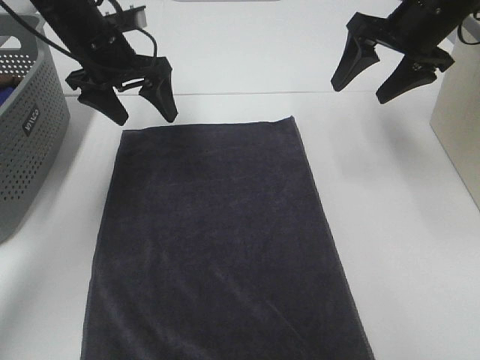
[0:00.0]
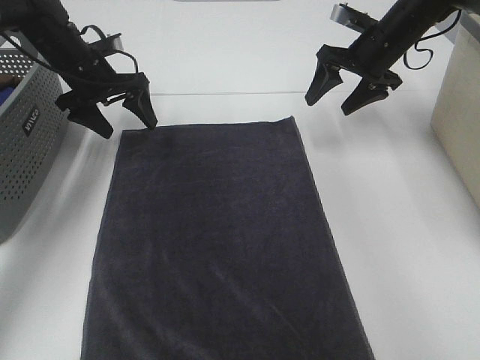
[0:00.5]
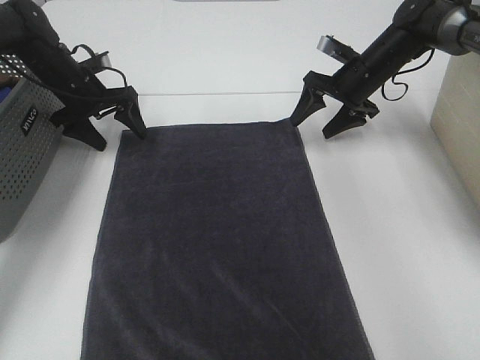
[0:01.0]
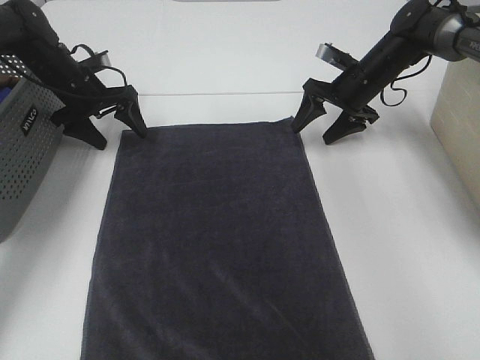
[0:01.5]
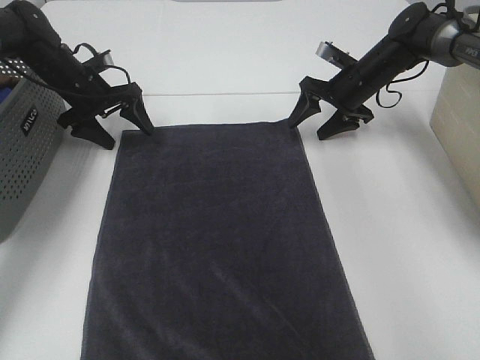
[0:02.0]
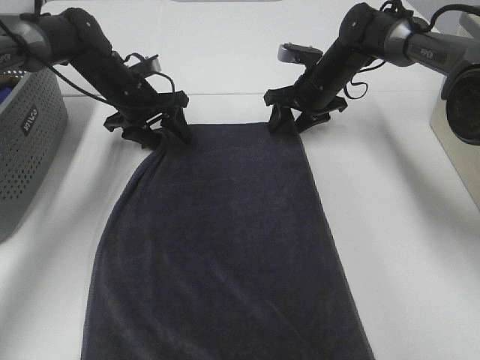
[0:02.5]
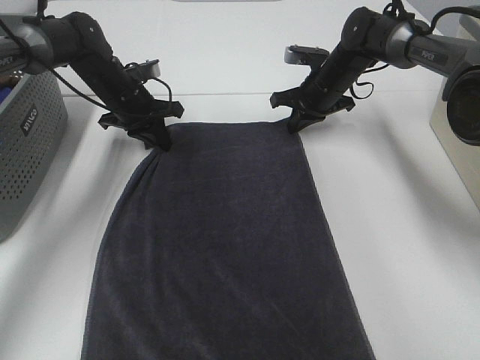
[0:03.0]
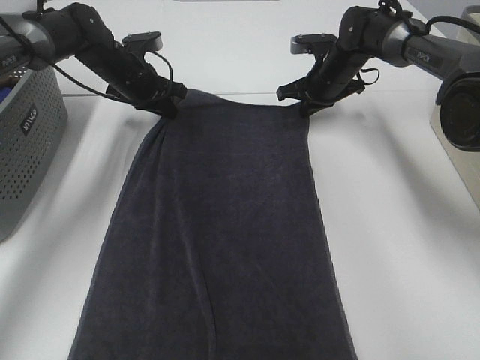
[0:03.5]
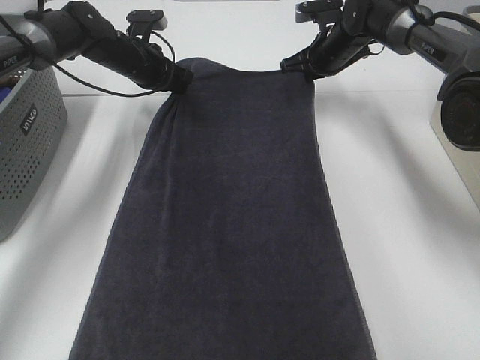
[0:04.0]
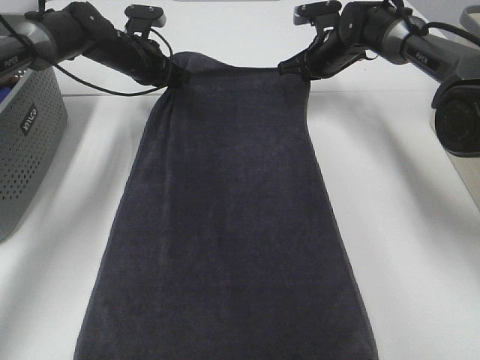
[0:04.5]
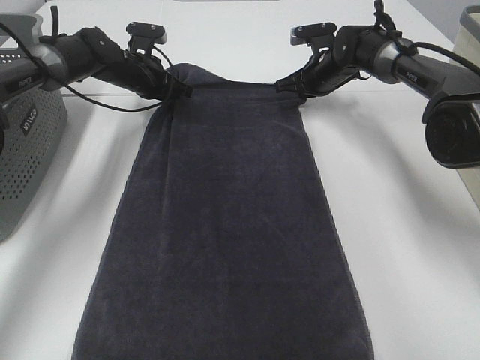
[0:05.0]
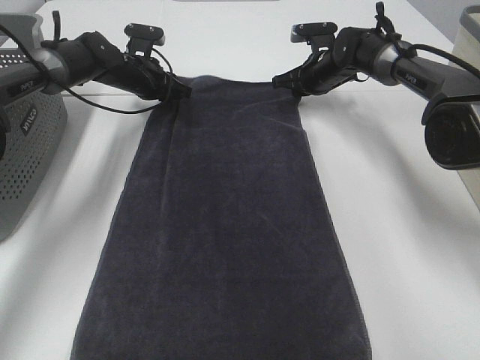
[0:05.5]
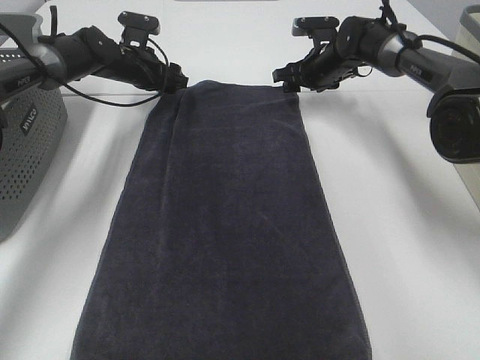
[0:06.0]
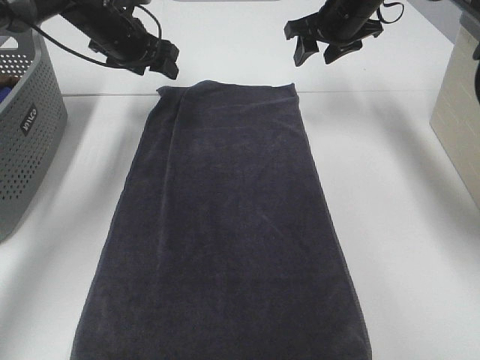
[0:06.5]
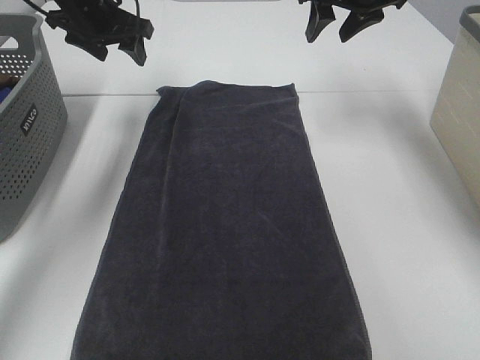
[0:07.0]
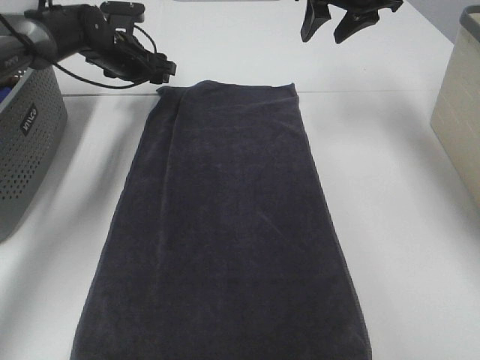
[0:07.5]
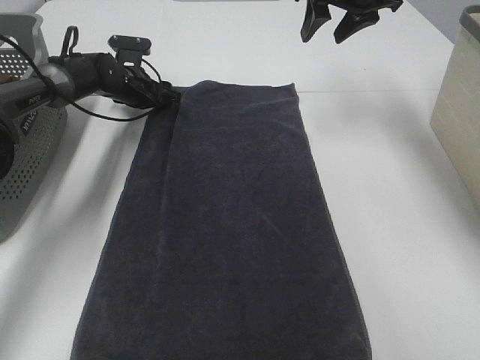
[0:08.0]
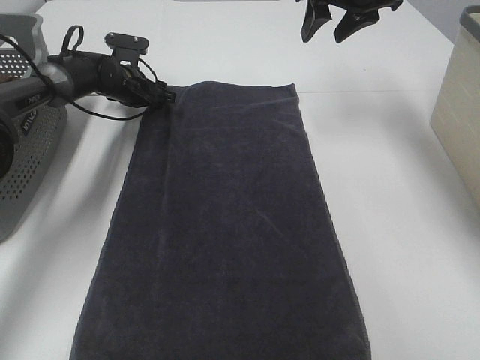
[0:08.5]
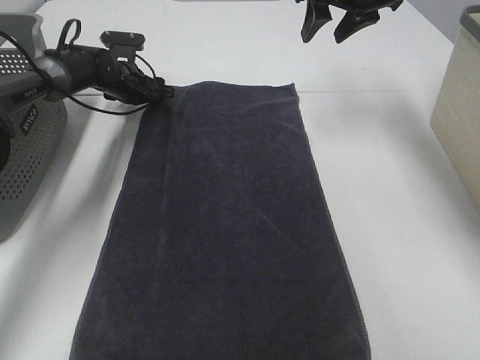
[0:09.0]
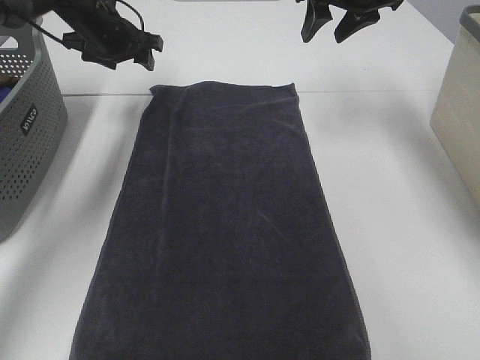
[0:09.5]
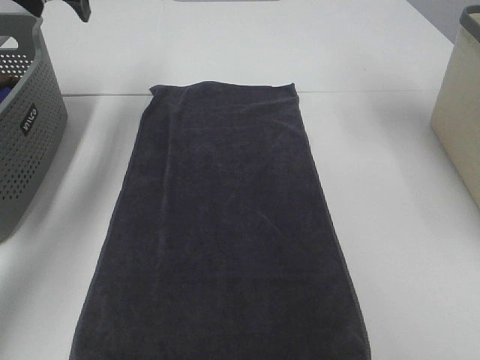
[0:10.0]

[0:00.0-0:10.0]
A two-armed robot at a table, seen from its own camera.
Task of the whole recording: Remove the towel and place it.
Step, 0:00.0 to 0:02.5: Left hand:adjust the gray towel.
0:00.0 to 0:02.0: The left gripper travels downward, to the left and forward by approximately 15 cm. Meanwhile the right gripper is displaced downward and forward by approximately 20 cm.
0:02.0 to 0:04.0: The left gripper travels to the right by roughly 5 cm, and closes its fingers. Meanwhile the right gripper ends up approximately 5 cm from where it was, and closes.
0:04.0 to 0:06.0: The right gripper opens up. The left gripper opens.
0:06.0 to 0:08.0: The left gripper reaches approximately 10 cm upward, then returns; the right gripper travels upward and backward by some 20 cm.
0:08.0 to 0:10.0: The right gripper goes some 10 cm upward. Meanwhile the left gripper travels upward by about 25 cm.

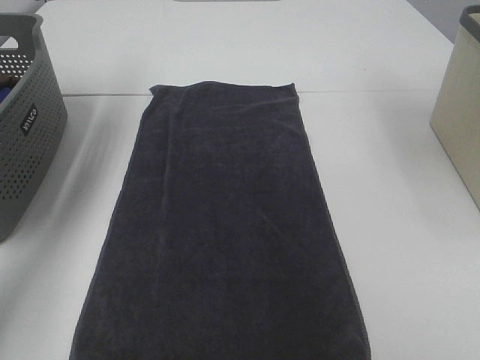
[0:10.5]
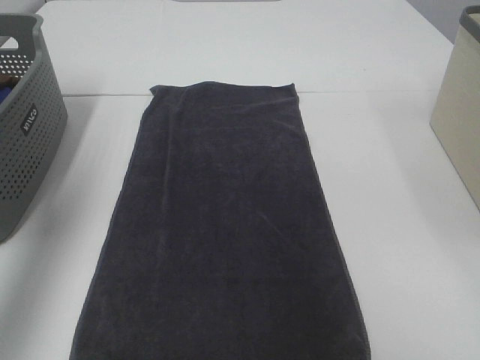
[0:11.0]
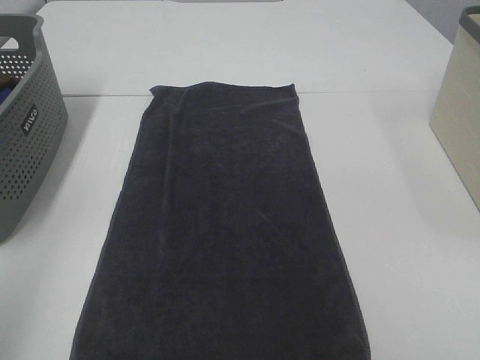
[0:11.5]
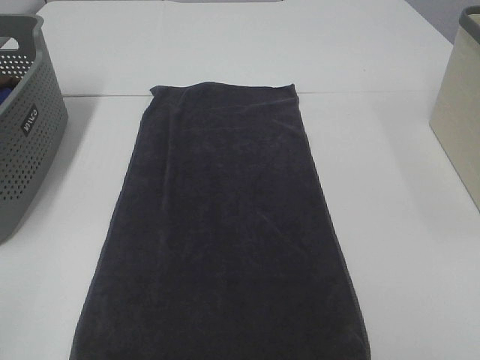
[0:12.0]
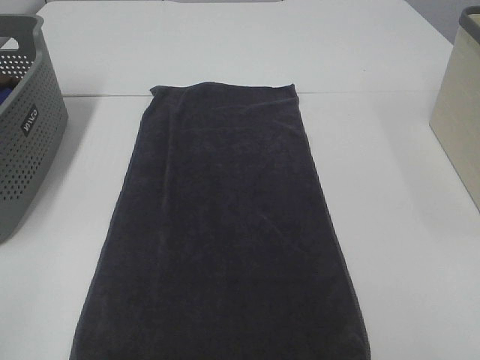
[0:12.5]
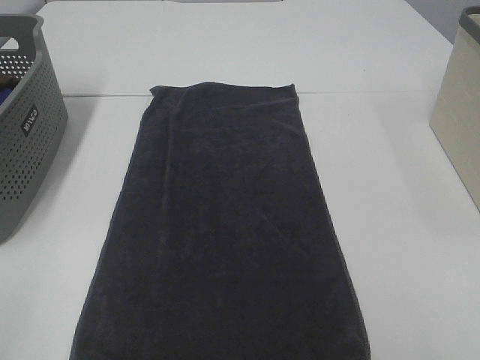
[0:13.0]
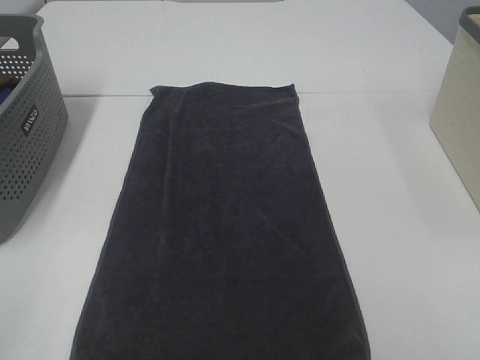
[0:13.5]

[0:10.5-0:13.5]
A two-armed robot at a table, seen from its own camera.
Task of the whole recording: Remove the towel and place it.
0:10.5 to 0:12.0: Both grippers travel together backward, approximately 40 cm.
